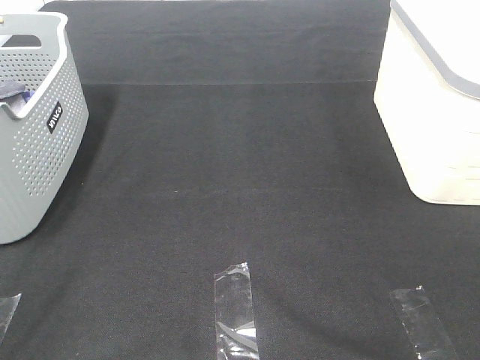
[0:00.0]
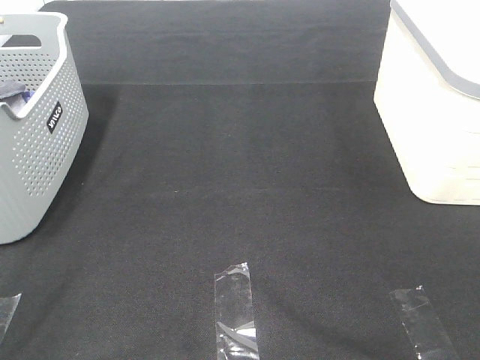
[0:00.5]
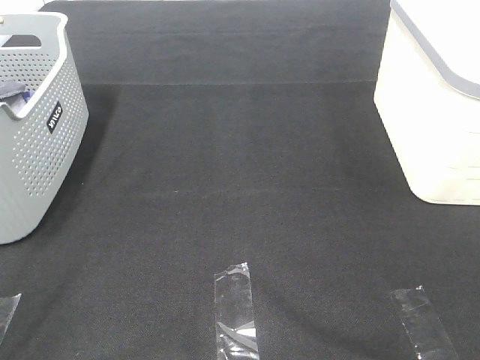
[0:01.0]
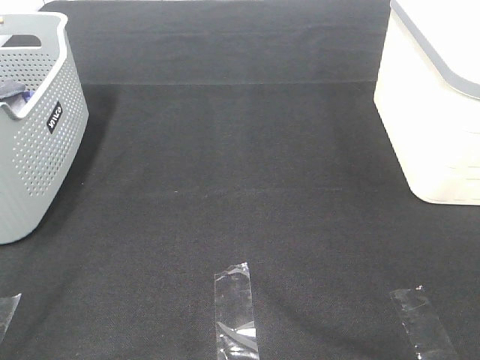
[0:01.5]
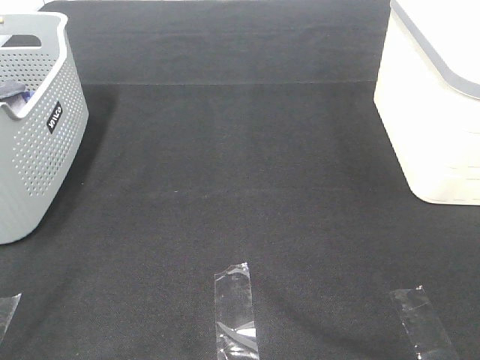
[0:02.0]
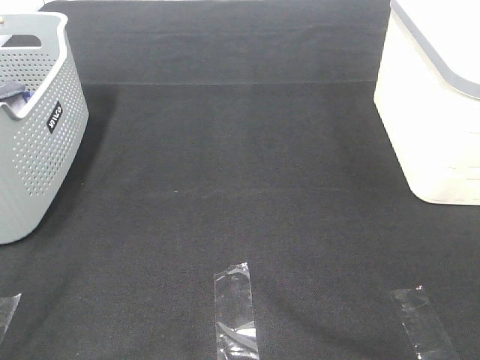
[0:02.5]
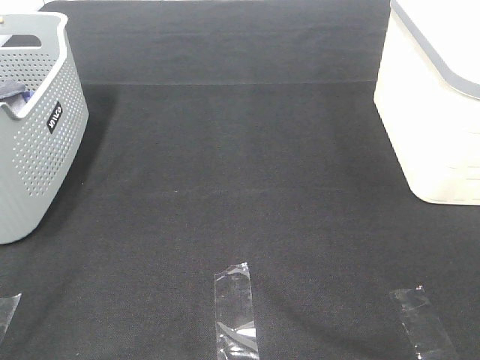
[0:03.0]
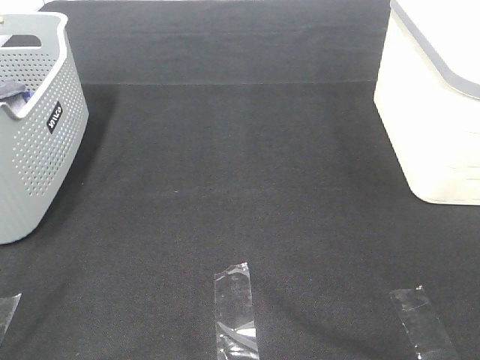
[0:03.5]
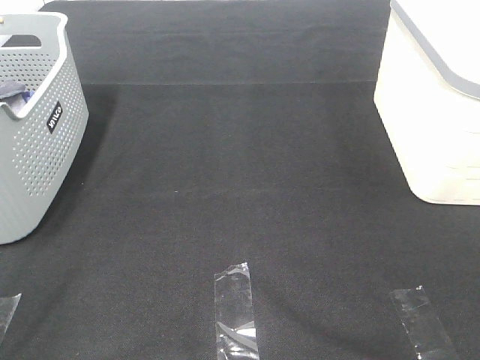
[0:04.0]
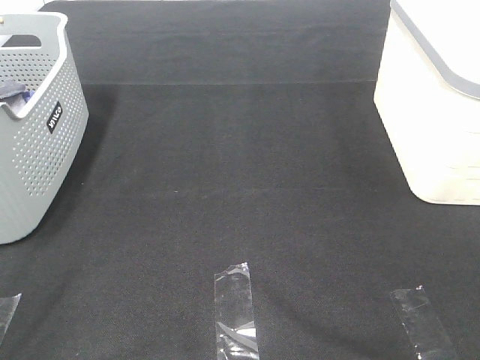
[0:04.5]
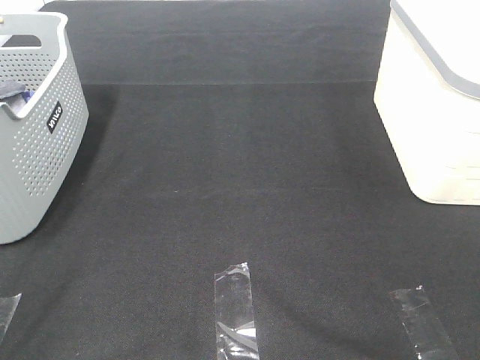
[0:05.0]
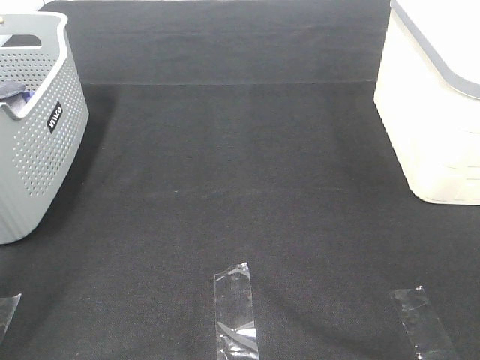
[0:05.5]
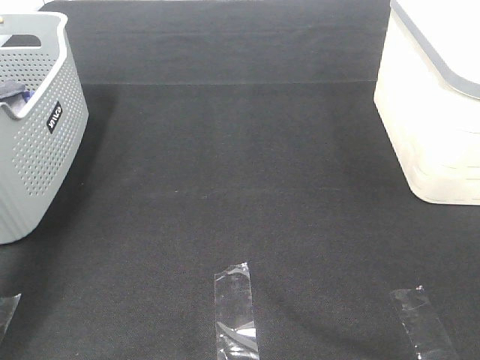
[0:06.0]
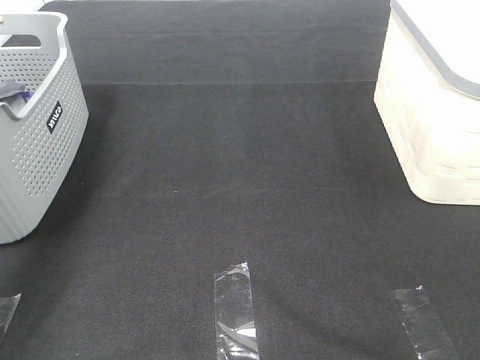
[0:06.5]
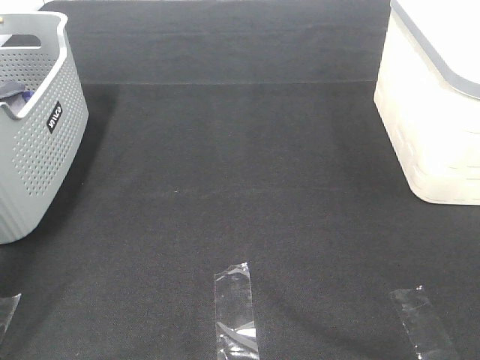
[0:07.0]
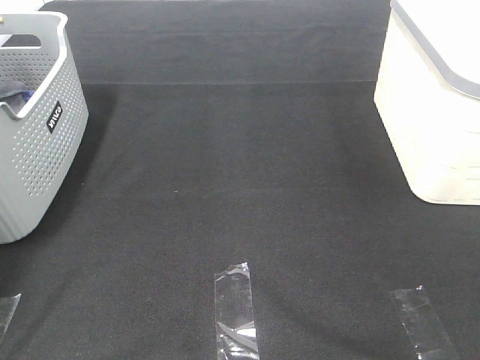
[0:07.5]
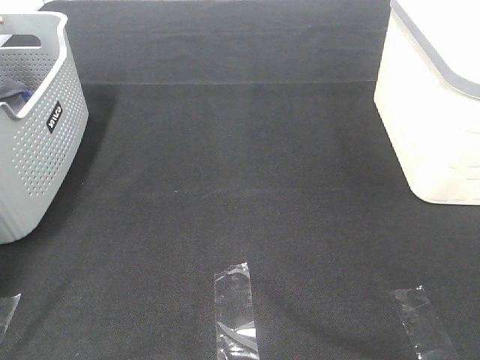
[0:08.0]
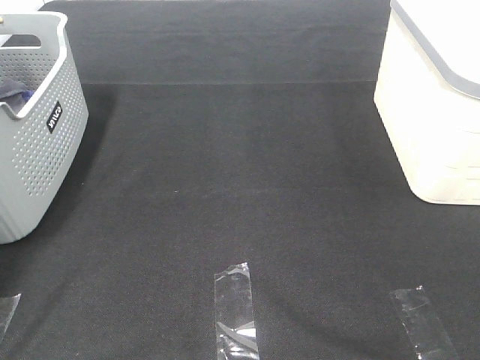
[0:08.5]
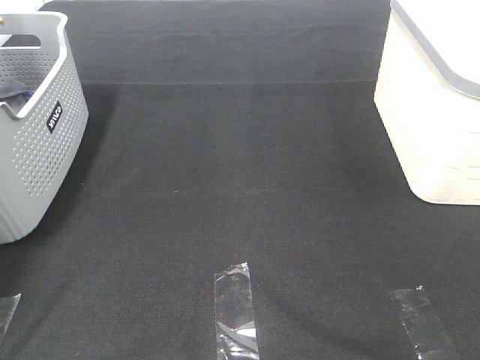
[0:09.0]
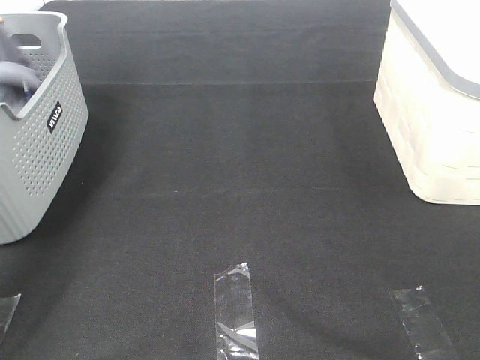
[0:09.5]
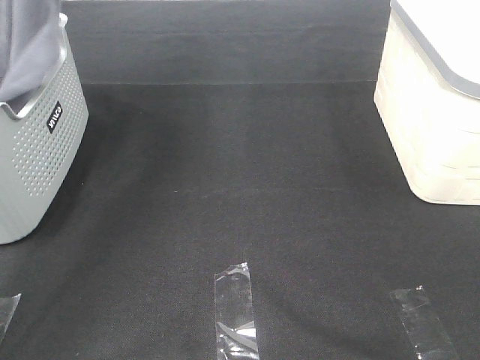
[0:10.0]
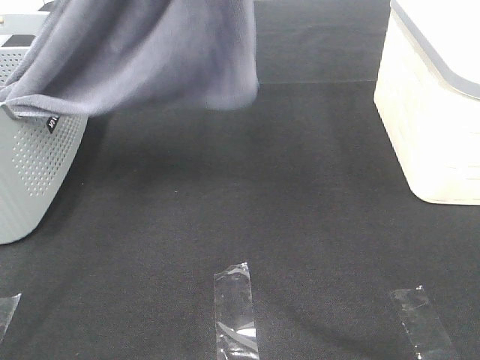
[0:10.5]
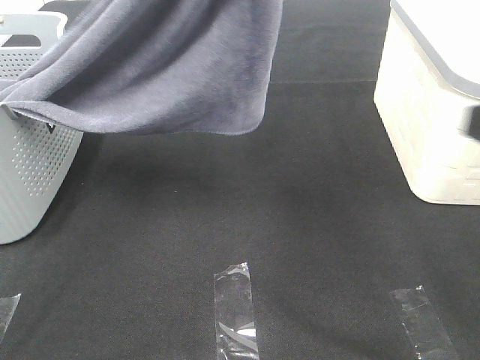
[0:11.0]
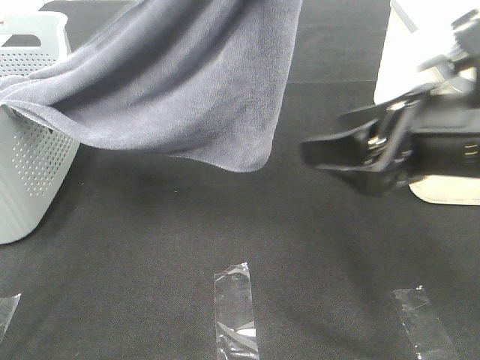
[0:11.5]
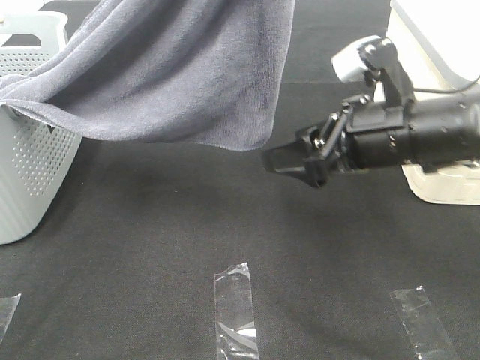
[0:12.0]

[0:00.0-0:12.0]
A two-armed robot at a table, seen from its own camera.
Task of the whole recording: Remove the towel and place it.
0:00.0 to 0:04.0: The two grippers keep their place.
0:04.0 to 0:06.0: The left gripper goes approximately 30 cm forward.
0:06.0 to 0:08.0: The left gripper travels forward, to the left and downward by some 30 cm.
0:08.0 to 0:10.0: The left gripper moves upward, to the right and backward, about 40 cm, and closes up.
0:10.0 to 0:12.0: The right gripper moves forward and to the left, approximately 30 cm. The left gripper heads to the right and backward, covering about 20 cm.

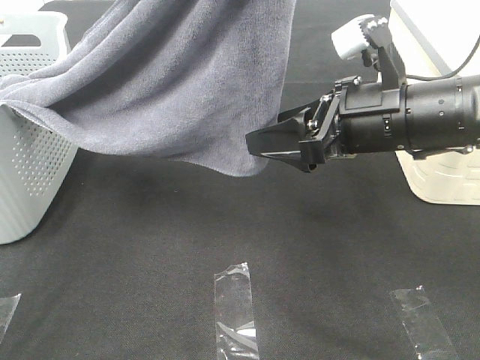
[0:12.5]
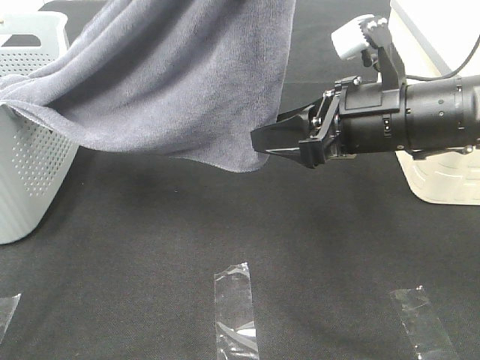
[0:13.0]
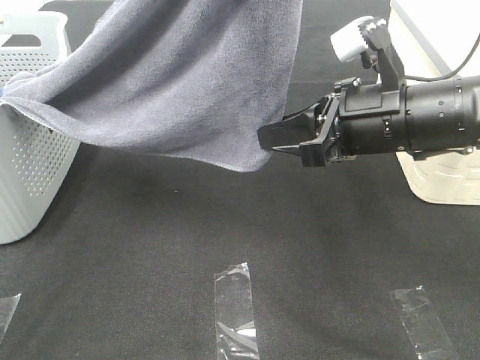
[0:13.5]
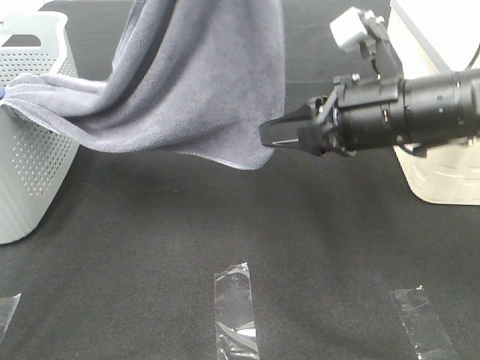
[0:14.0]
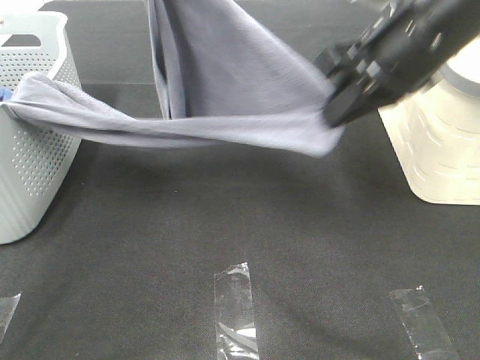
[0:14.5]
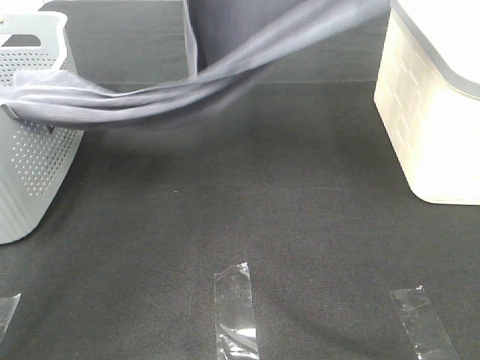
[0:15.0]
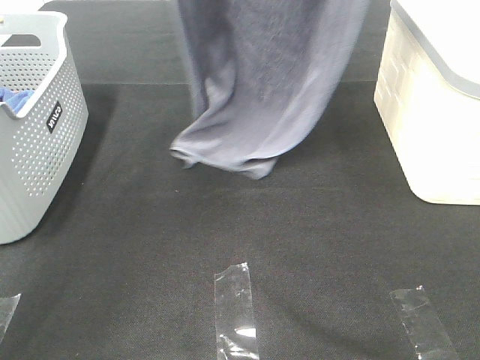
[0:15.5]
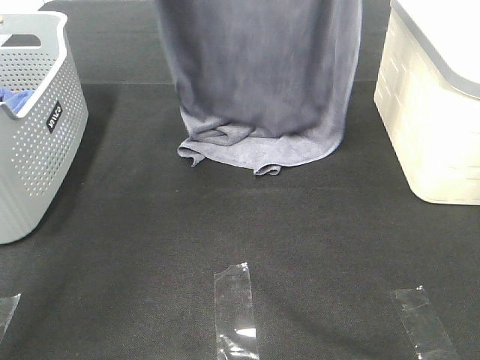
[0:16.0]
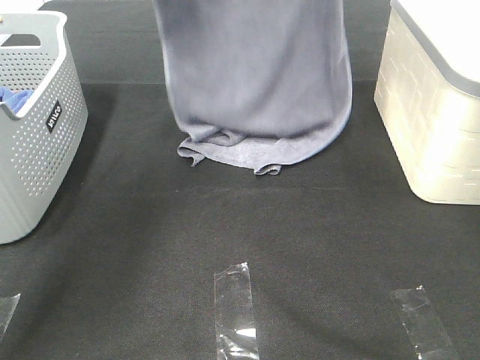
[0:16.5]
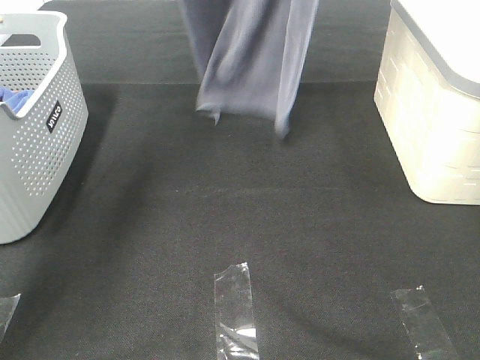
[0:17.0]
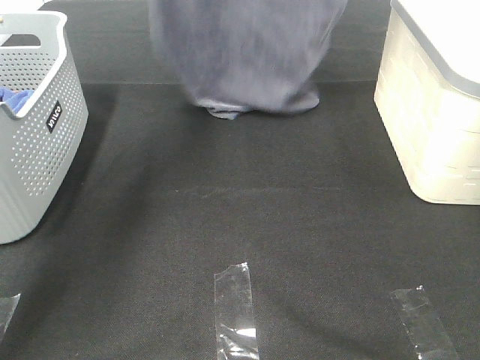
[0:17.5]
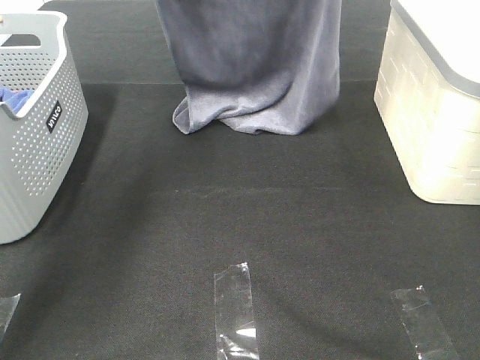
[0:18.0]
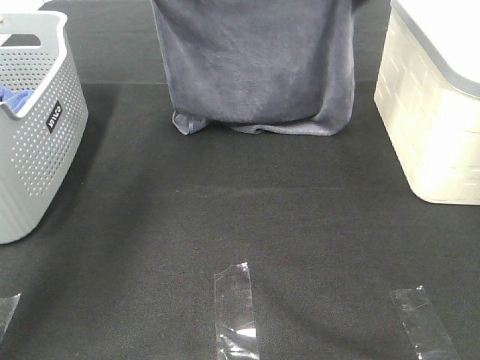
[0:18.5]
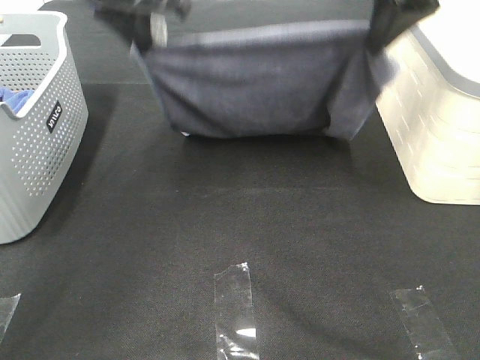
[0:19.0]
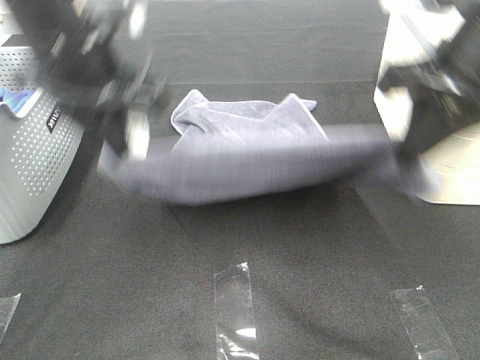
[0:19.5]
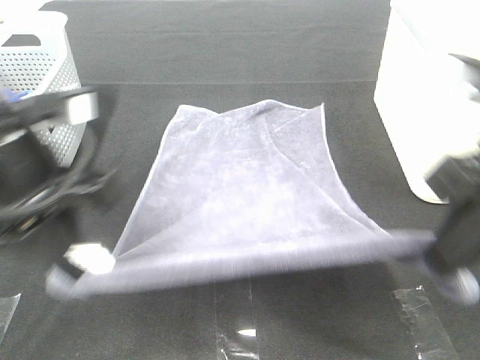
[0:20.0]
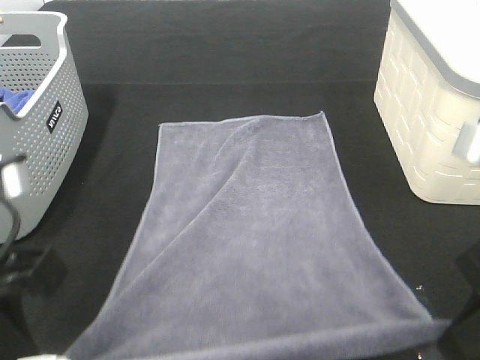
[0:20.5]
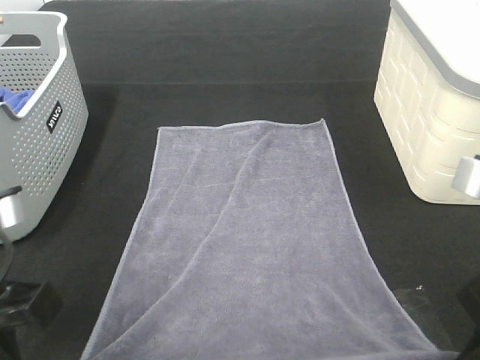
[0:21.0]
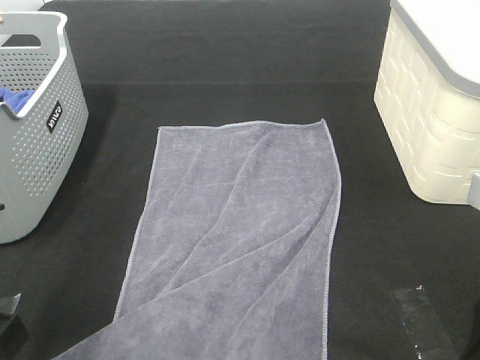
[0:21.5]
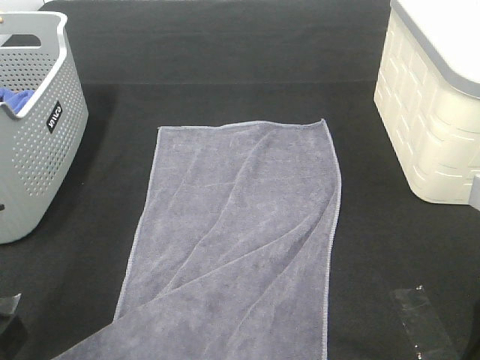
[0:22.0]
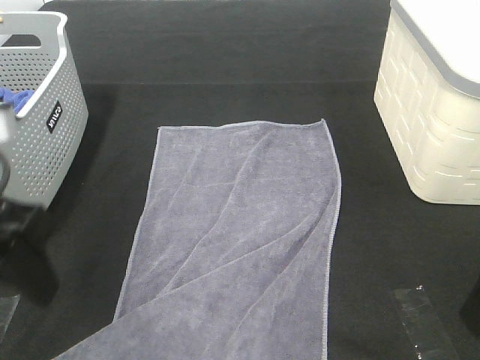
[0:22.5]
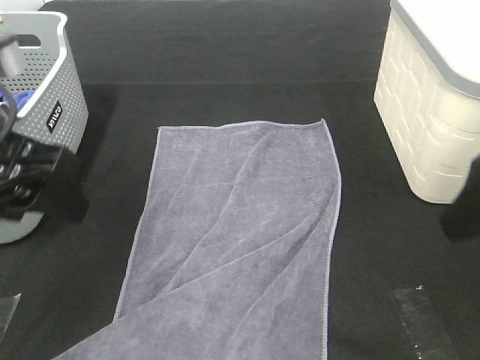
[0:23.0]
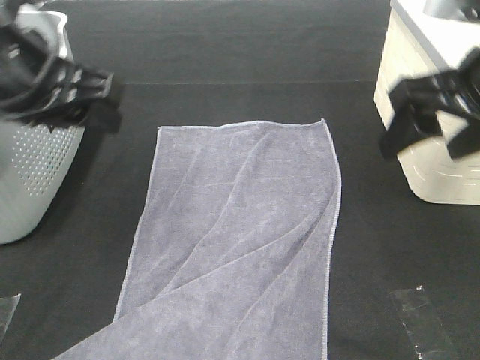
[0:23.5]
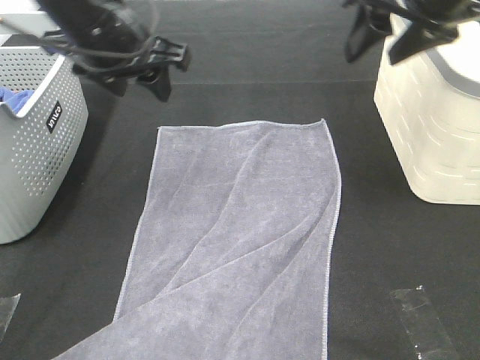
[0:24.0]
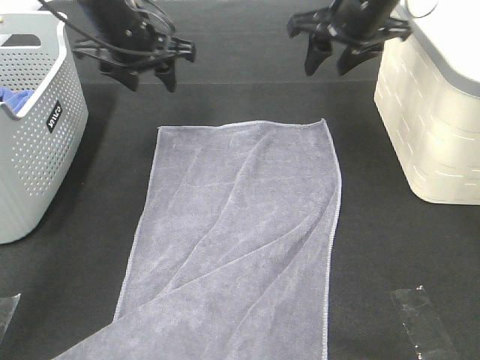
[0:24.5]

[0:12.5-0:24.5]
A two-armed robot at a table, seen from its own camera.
Task of the whole recording: Remove the towel and place it.
Step, 0:13.0 to 0:17.0: Left hand: spread the grey towel flat on the table.
Step, 0:13.0 to 0:17.0: Right hand: spread the grey towel flat on the table.
0:12.5 to 0:14.5: The left gripper moves forward and downward, approximately 15 cm. Meanwhile the right gripper travels upward by about 10 cm, and closes.
0:14.5 to 0:16.5: The right gripper is displaced forward and upward by approximately 20 cm. The left gripper moves forward, approximately 15 cm.
0:16.5 to 0:18.5: The left gripper goes upward and returns, some 10 cm each way; the right gripper is displaced backward by approximately 5 cm, and goes upward and returns, some 10 cm each way.
0:18.5 to 0:20.5: The right gripper moves backward and downward, approximately 35 cm, while the left gripper is displaced backward by roughly 35 cm.
0:20.5 to 0:22.5: The right gripper opens up. The left gripper opens up.
0:22.5 to 0:24.5: Both grippers move forward, some 30 cm.

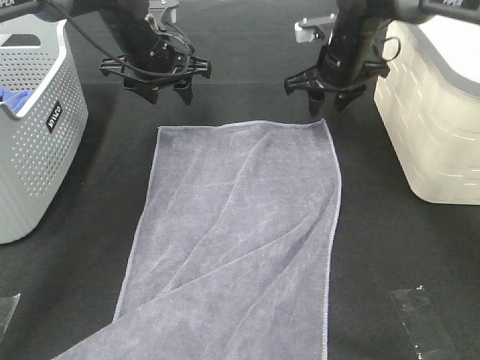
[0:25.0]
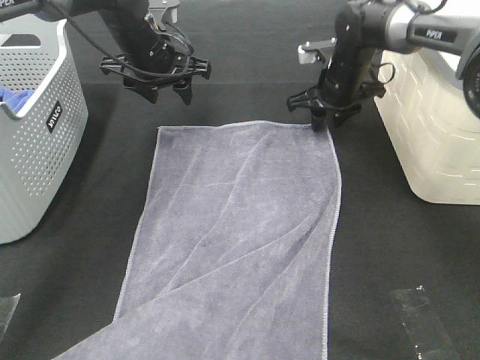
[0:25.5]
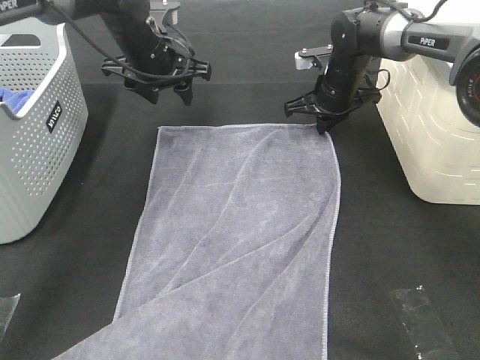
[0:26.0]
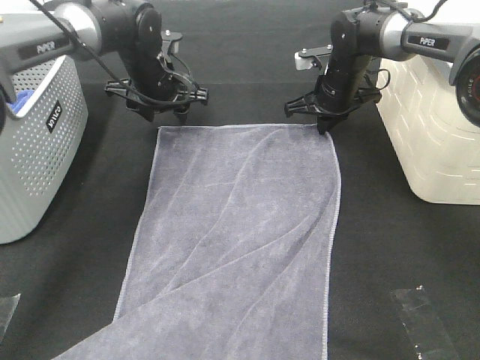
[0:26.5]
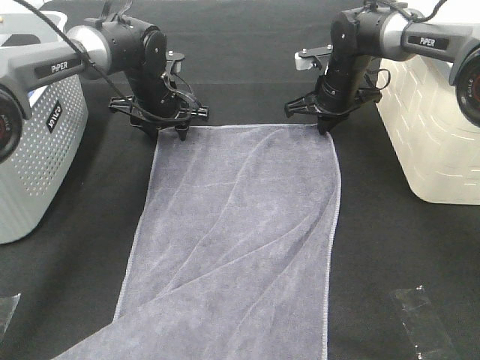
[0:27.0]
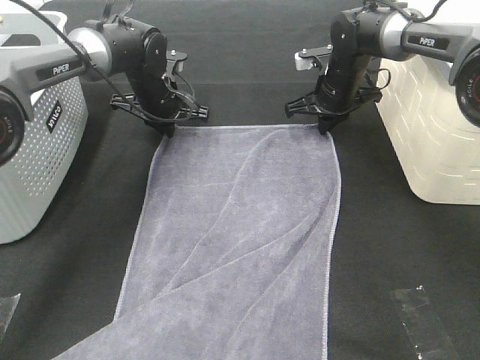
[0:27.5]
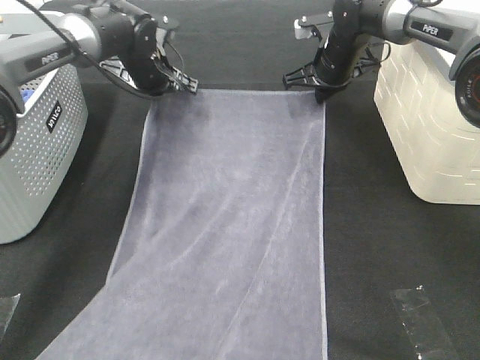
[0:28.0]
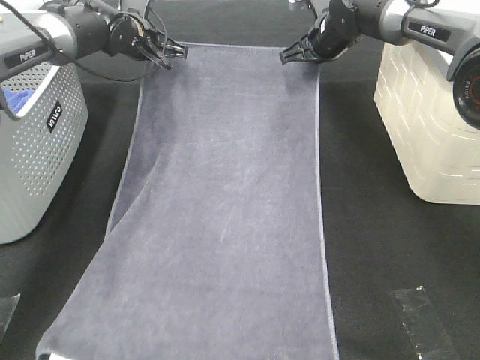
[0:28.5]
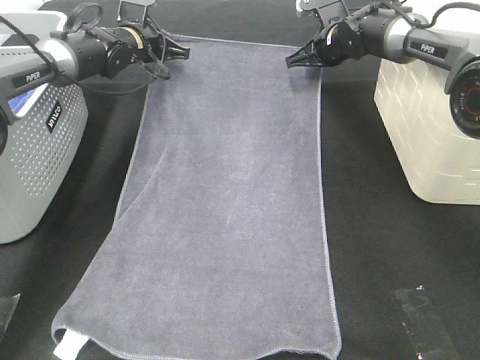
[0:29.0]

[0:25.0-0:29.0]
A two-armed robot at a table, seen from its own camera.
Task of the whole recording: Remove the towel and place it.
0:25.0 to 0:27.0: The right gripper travels downward by about 5 cm, and closes its fingers, while the left gripper shifts some 10 cm downward.
0:27.0 to 0:29.0: The left gripper is displaced forward and to the left by some 10 cm, and closes up. The right gripper shifts some 5 cm forward.
